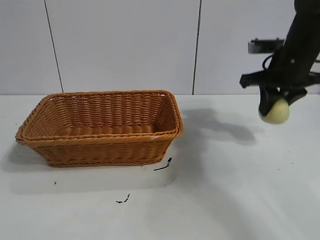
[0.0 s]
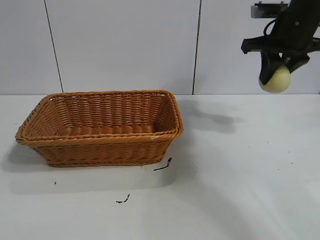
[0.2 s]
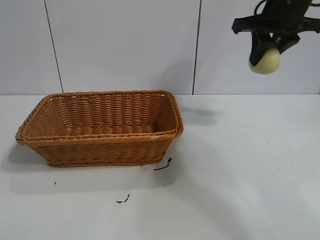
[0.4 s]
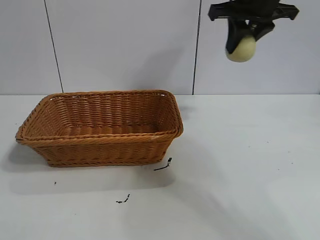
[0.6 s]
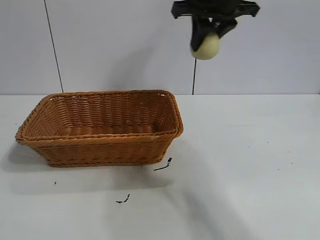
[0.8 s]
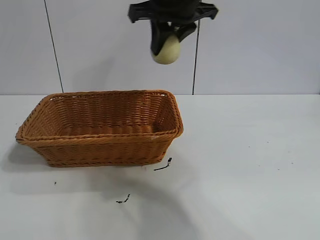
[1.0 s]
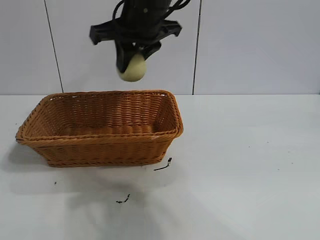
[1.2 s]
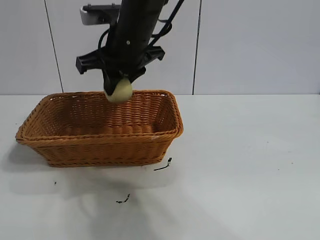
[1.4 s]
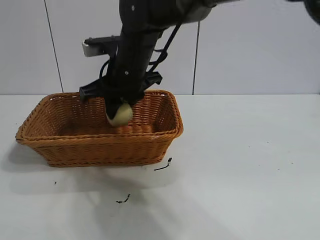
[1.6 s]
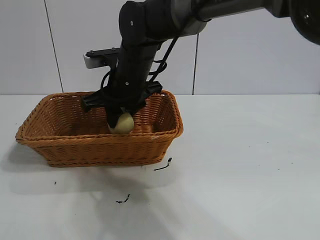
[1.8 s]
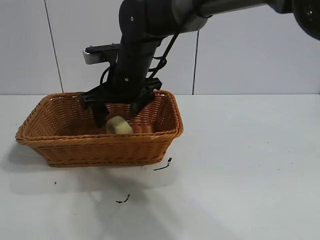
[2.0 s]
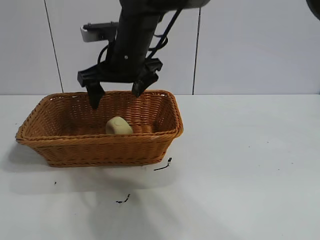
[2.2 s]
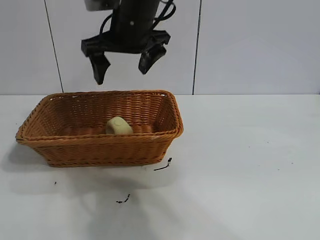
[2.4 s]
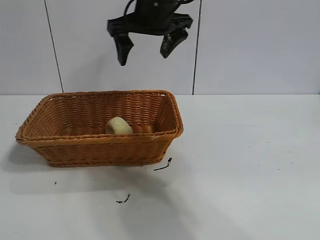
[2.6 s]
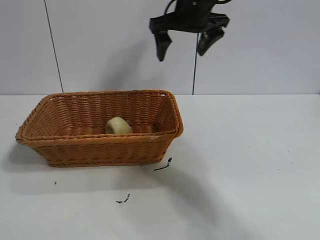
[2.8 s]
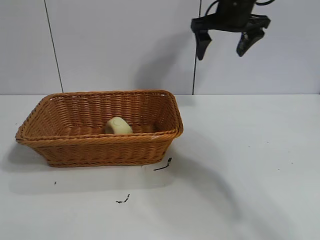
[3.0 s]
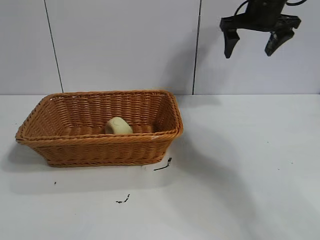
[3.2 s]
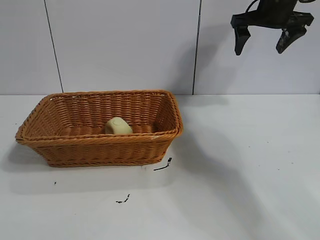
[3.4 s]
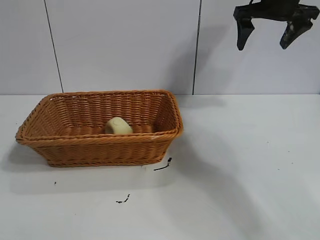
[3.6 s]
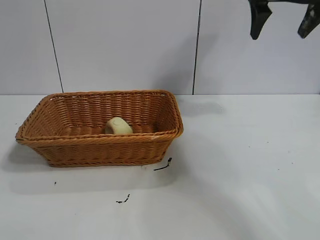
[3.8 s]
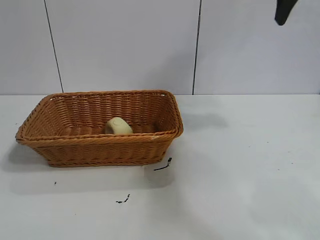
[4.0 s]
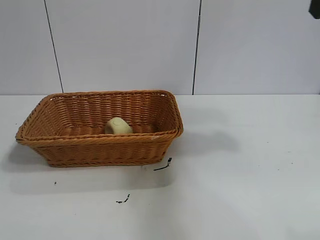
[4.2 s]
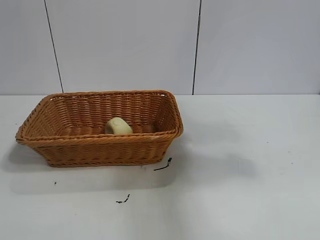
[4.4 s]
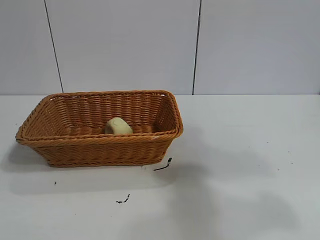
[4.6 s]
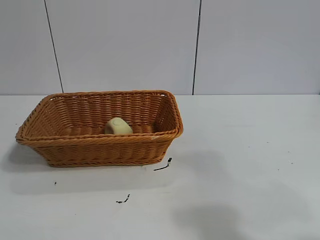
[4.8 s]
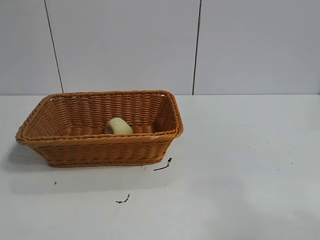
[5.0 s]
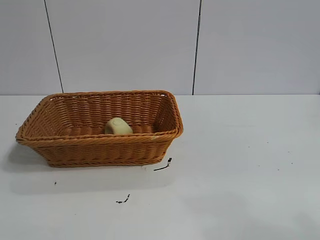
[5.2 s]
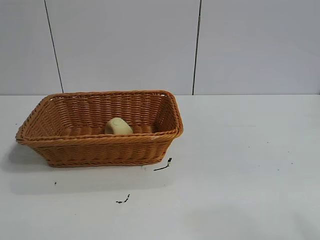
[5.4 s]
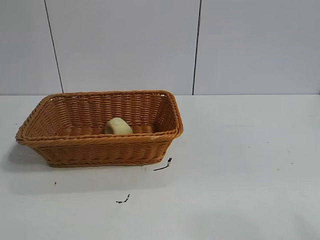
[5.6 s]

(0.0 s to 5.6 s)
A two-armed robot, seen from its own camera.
Task of the whole recording: pick up the egg yolk pastry and put it into the basket.
Step, 0.0 s - 1.8 s: Place the egg yolk pastry in the basket with right gripper.

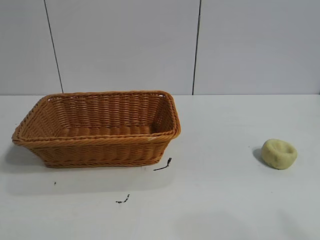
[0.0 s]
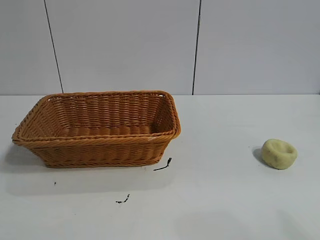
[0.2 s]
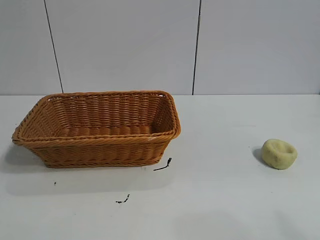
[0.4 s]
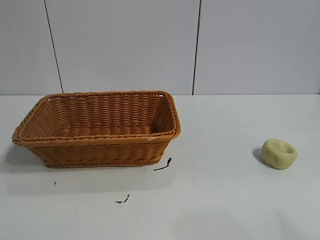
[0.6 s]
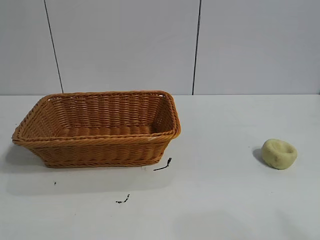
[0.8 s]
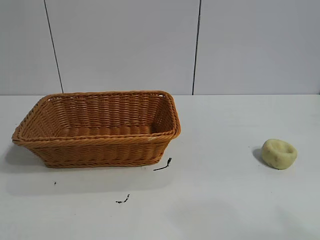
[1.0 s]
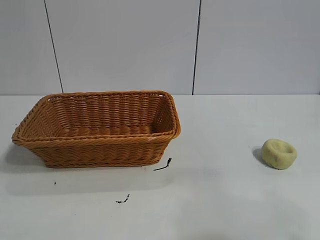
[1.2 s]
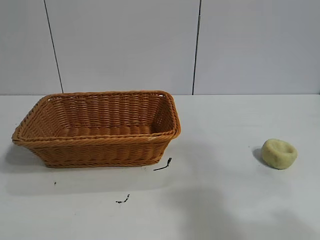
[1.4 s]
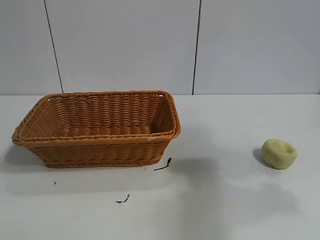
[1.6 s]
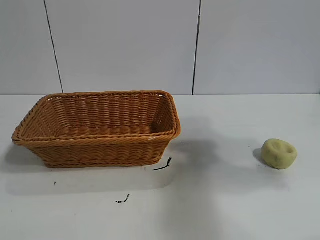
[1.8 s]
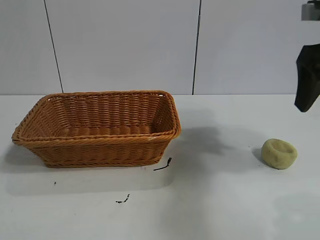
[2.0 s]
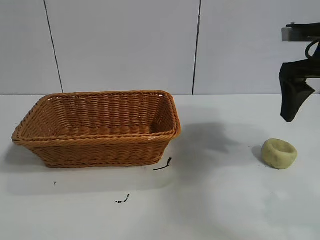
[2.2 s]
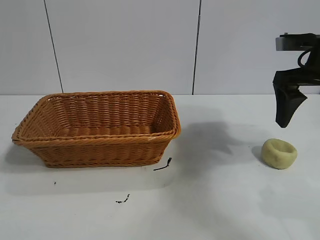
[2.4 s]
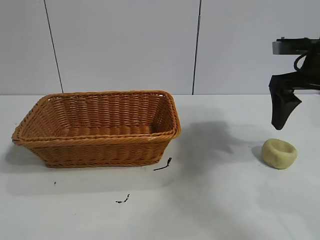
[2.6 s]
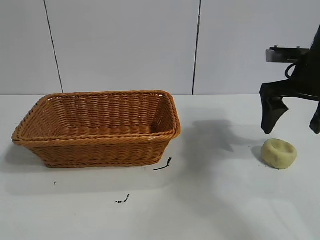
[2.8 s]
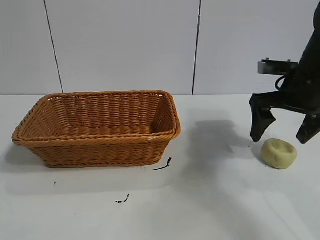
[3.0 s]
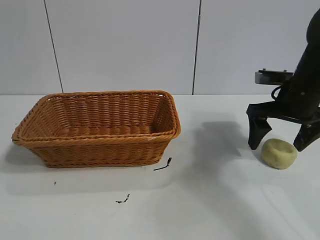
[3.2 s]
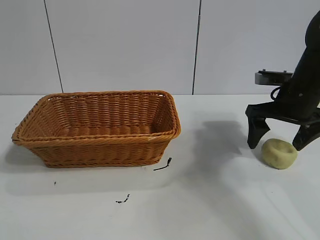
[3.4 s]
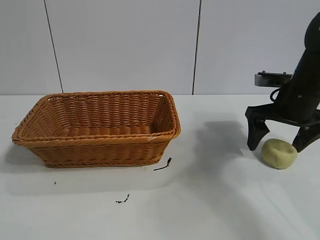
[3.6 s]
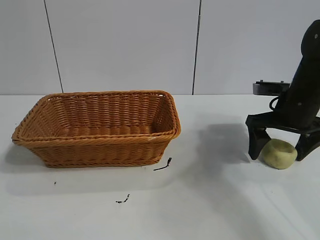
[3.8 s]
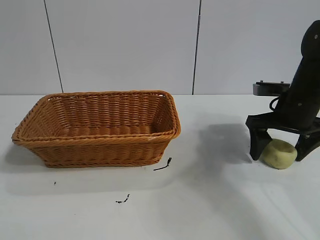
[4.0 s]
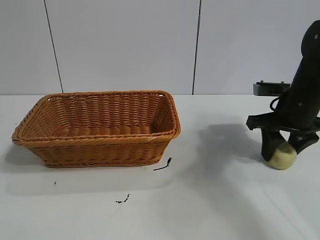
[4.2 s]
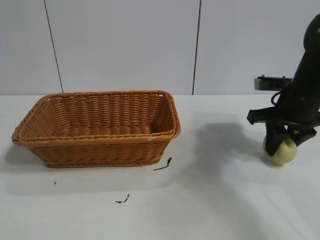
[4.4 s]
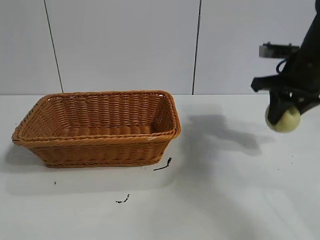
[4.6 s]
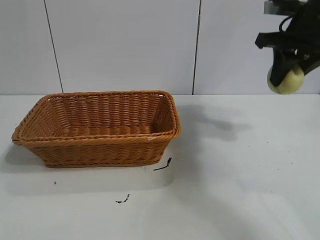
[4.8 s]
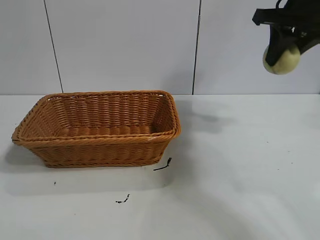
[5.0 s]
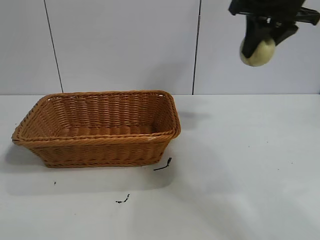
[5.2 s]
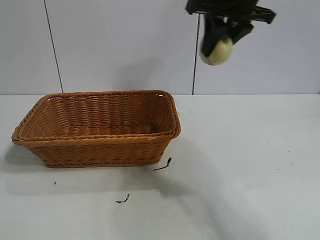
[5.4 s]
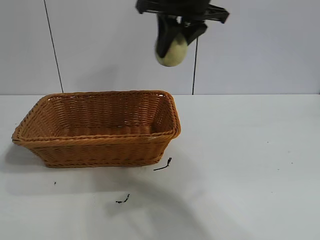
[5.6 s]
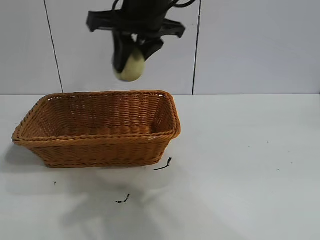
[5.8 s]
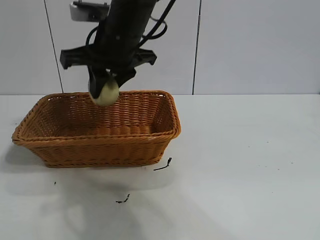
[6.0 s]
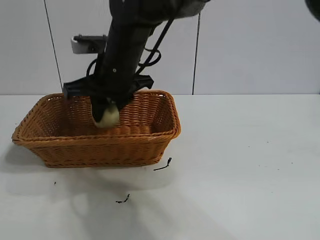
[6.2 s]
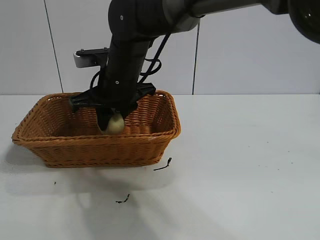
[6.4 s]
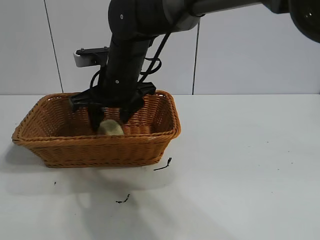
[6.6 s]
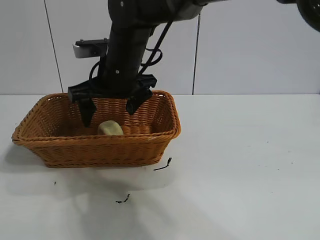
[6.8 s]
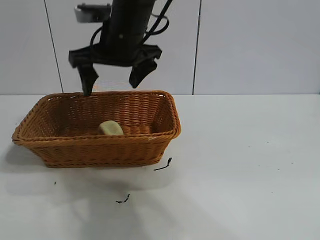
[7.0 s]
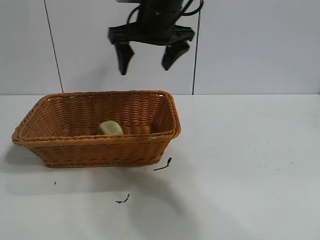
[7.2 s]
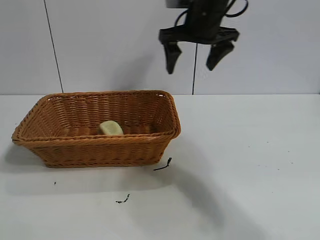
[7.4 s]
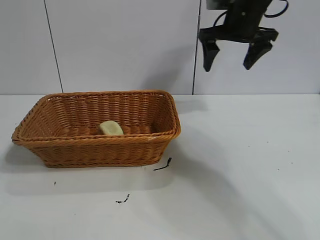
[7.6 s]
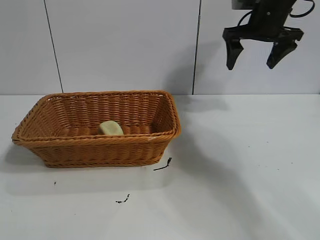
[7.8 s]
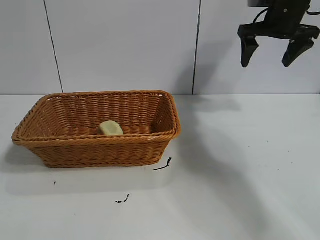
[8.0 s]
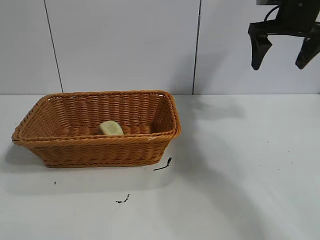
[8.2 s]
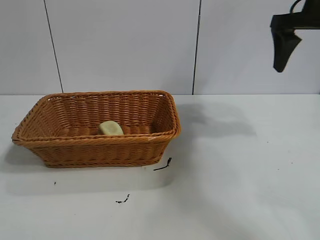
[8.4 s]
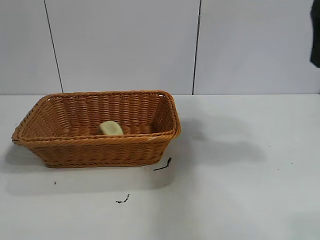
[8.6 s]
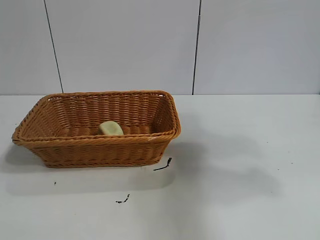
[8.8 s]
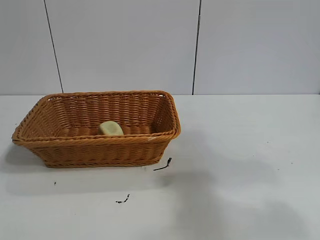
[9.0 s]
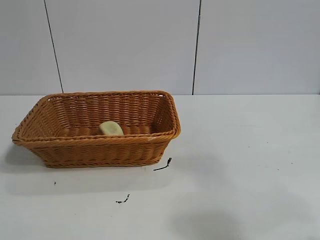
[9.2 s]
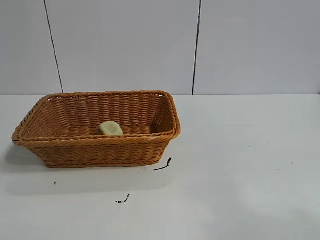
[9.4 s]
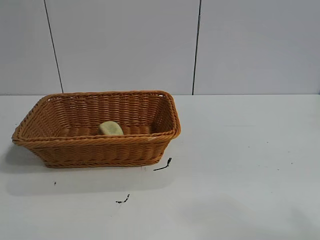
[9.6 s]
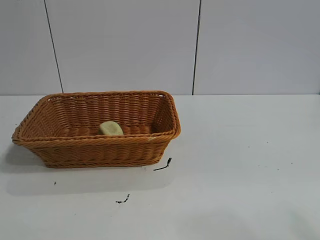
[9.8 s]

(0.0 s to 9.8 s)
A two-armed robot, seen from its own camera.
Task of the whole recording: pick up the egg yolk pastry and put it into the basket.
Step, 0.0 s - 4.2 s: Grasp egg yolk pastry with right gripper.
Step, 4.4 s - 6.6 s: Place the egg yolk pastry in the basket with right gripper.
